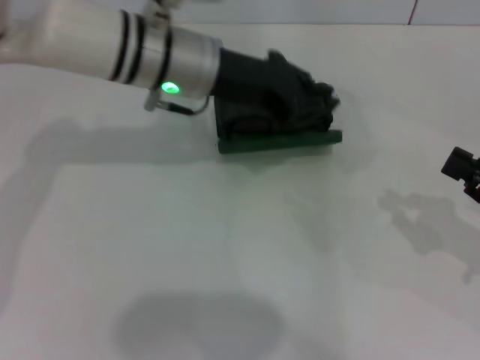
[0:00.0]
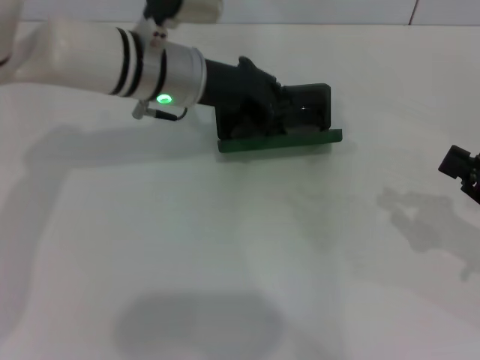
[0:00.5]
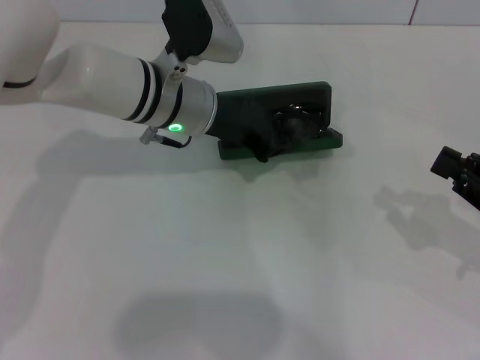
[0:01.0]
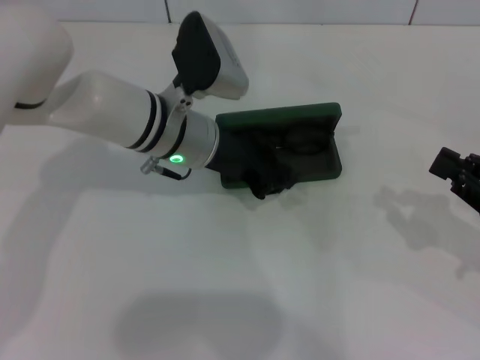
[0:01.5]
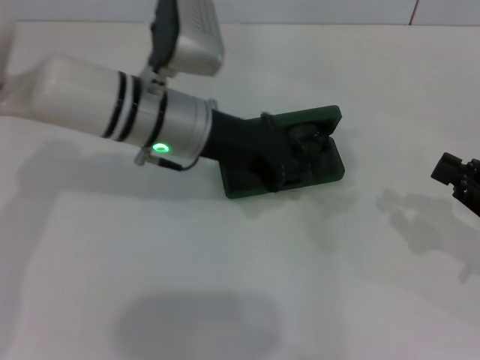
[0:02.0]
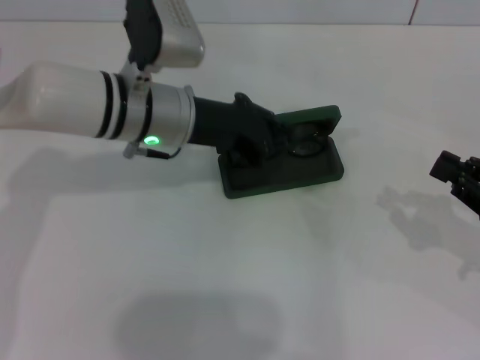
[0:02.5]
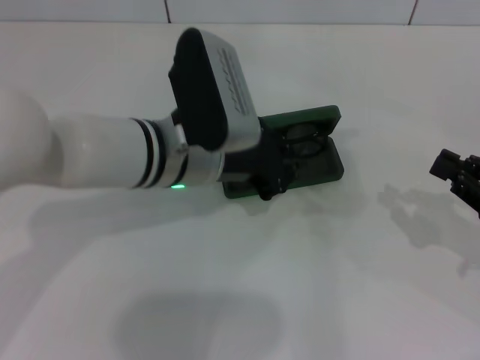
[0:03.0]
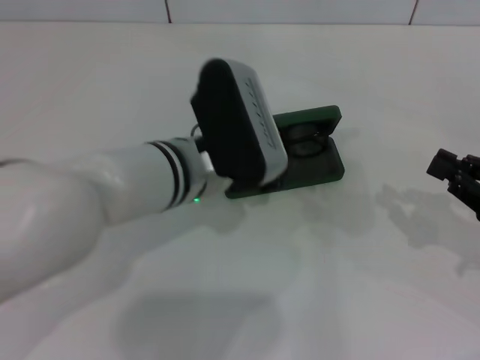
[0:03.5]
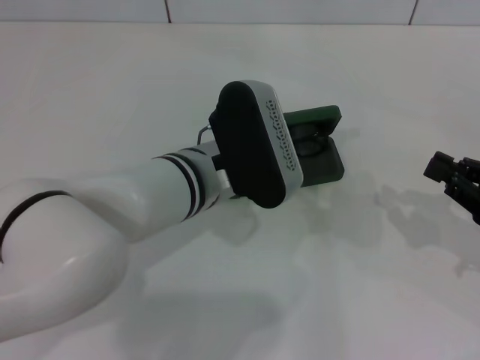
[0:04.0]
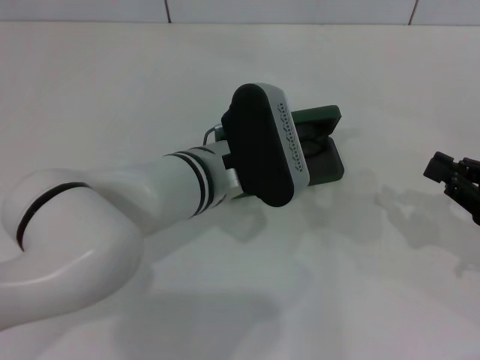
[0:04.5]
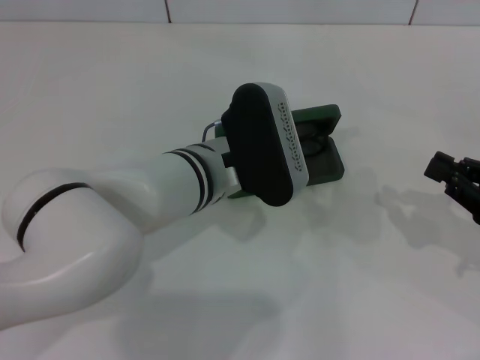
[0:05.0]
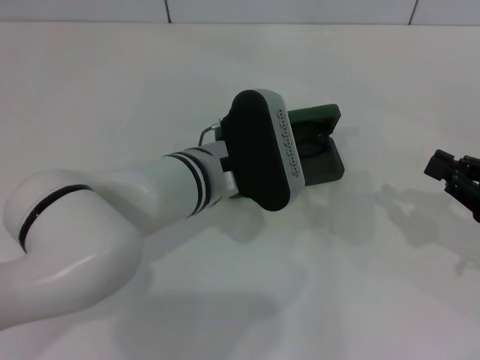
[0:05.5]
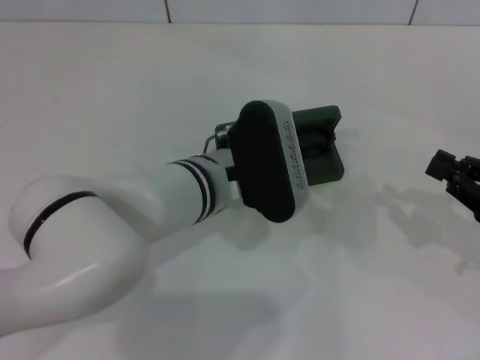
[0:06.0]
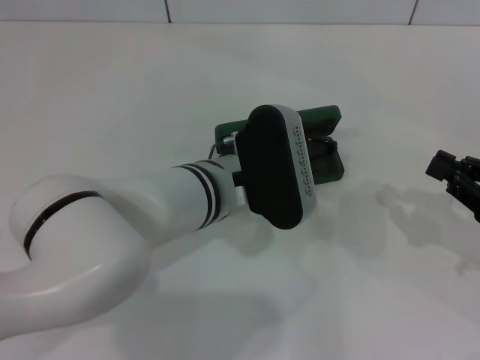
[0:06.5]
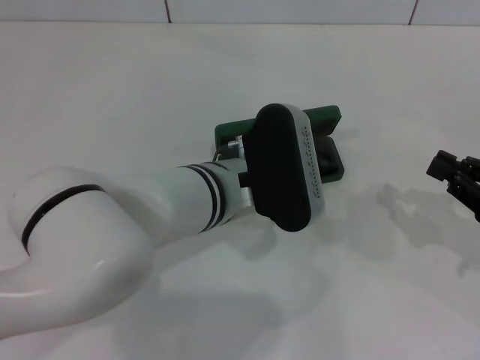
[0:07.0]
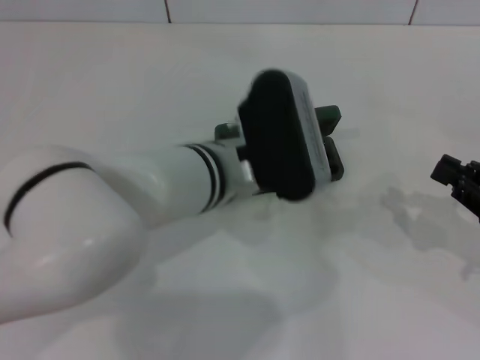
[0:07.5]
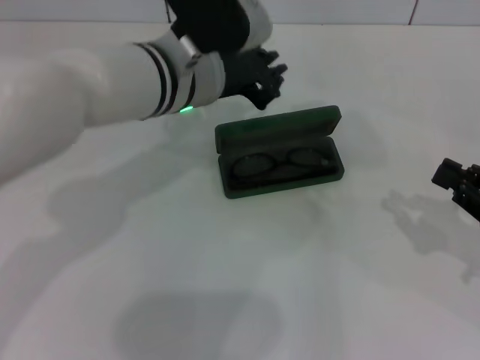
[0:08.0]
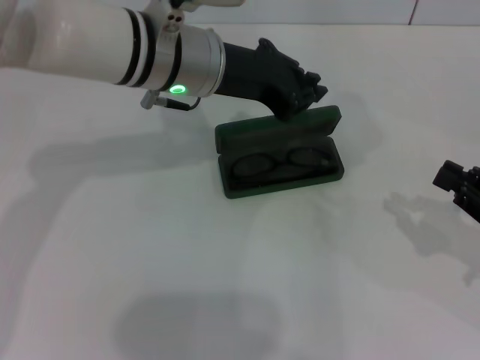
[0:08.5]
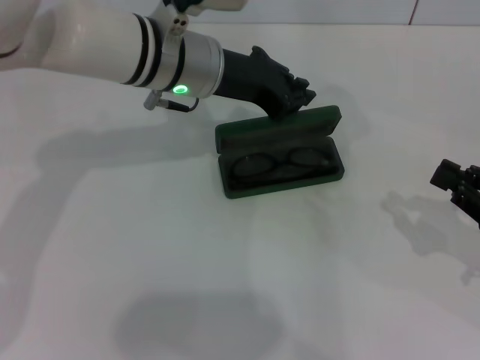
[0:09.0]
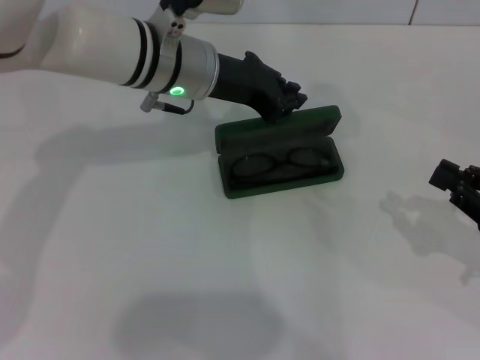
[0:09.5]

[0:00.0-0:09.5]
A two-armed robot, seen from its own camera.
0:02.0 to 0:04.0: The left gripper moves backward, approximately 5 cm.
0:04.0 to 0:07.5: There are only small adjustments of the grippers.
0:07.5 to 0:09.5: The left gripper travels forward and to the left by approximately 10 cm.

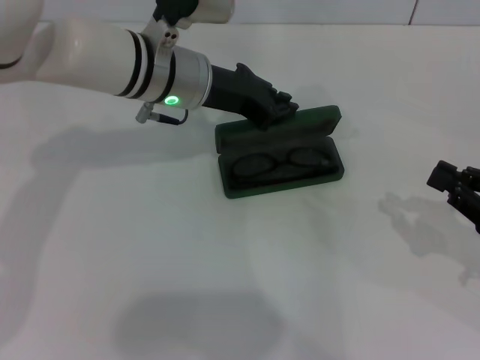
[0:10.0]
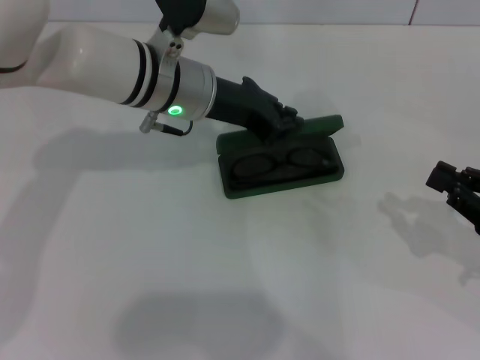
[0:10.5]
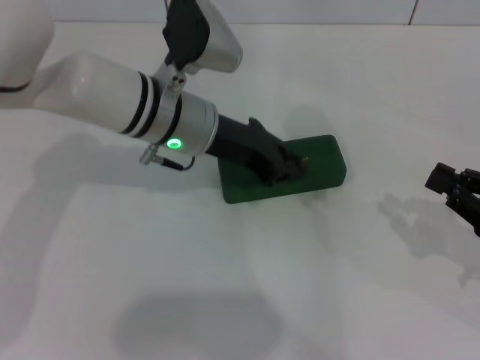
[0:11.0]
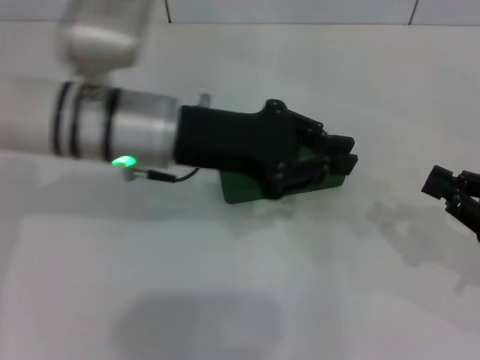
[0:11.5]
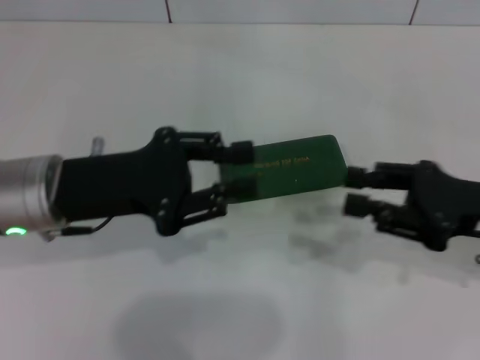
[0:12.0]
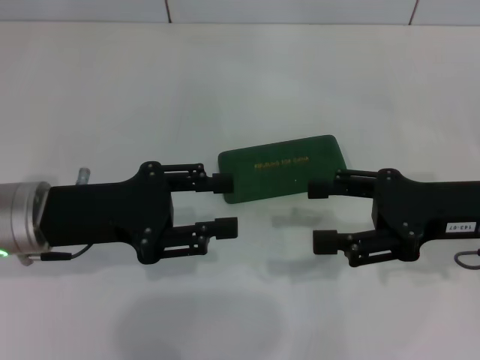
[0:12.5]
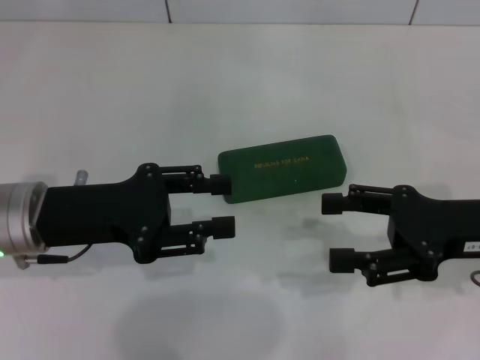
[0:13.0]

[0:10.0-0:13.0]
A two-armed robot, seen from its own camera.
0:10.0 to 0:11.5: The left gripper travels backward by roughly 10 cm.
0:11.5 to 0:13.0: The right gripper heads to the left, covering roughly 10 cm, and opens up; the left gripper moves to the left, backward and downward, some 15 cm, and opens.
